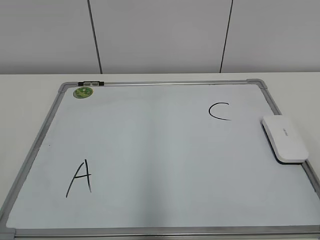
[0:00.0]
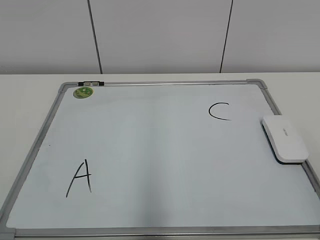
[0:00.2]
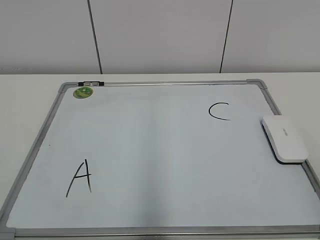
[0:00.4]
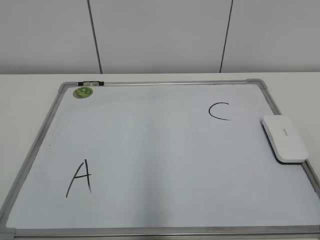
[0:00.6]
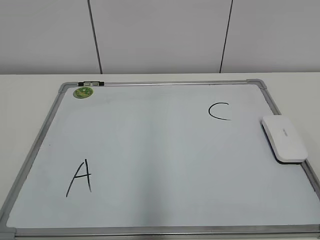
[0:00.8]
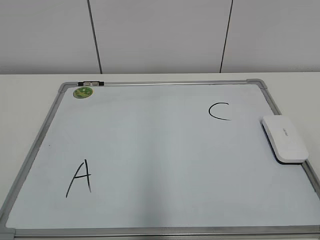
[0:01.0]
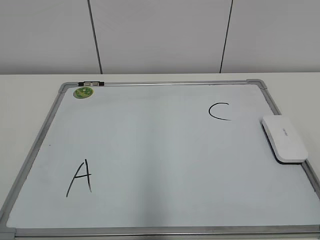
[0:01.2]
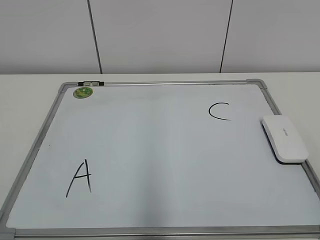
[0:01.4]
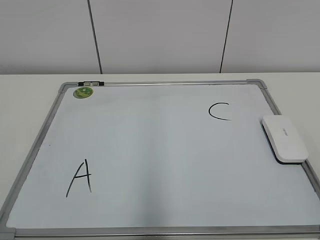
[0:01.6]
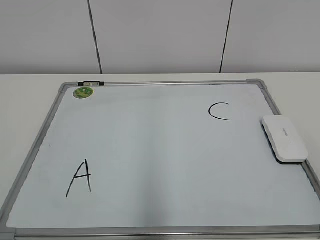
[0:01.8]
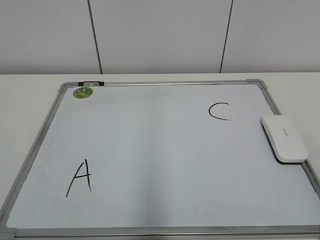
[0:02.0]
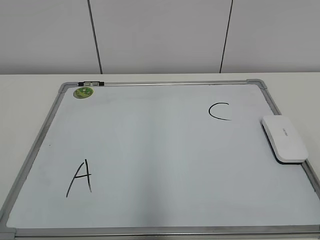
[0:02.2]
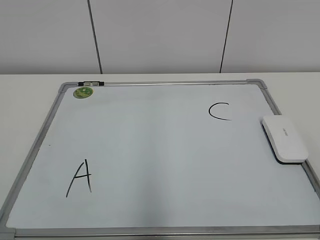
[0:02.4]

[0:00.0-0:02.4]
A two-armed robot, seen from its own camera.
Task of the whole recording: pick up the eraser on the blackboard and erase the letter "B".
0:01.2 to 0:02.4: Both grippers stay about where they are.
